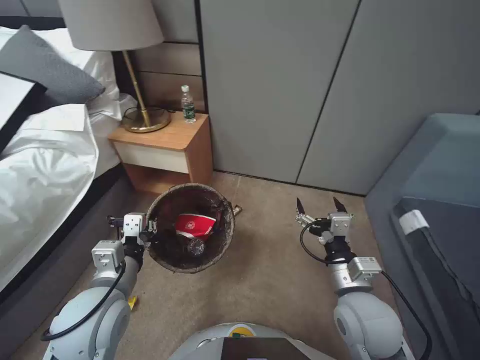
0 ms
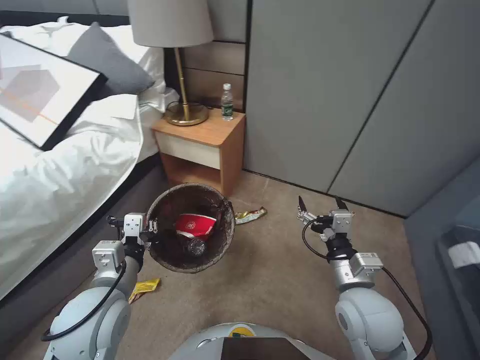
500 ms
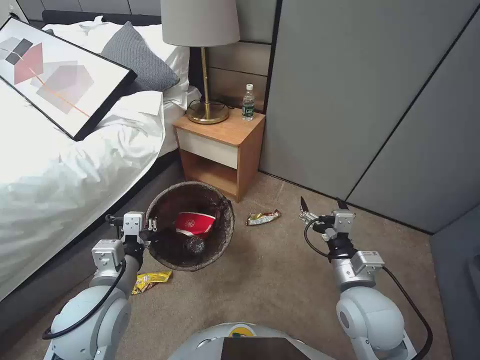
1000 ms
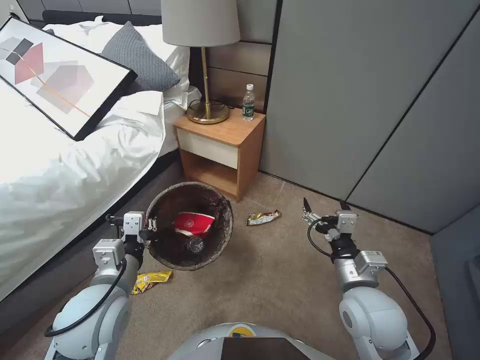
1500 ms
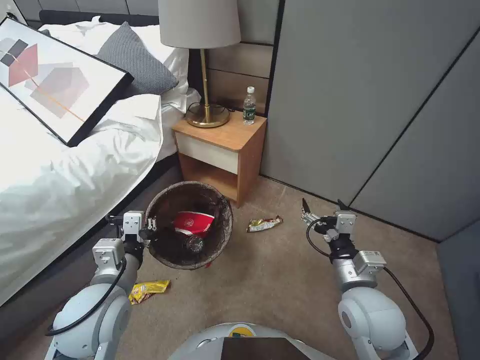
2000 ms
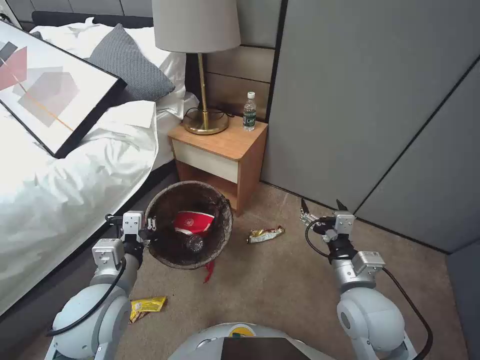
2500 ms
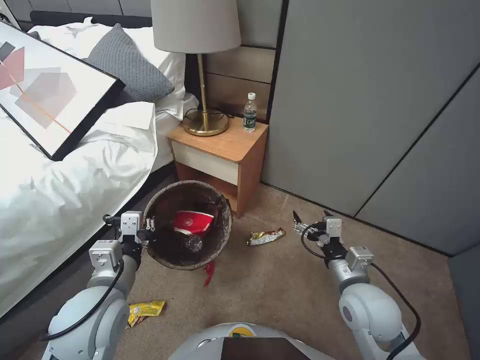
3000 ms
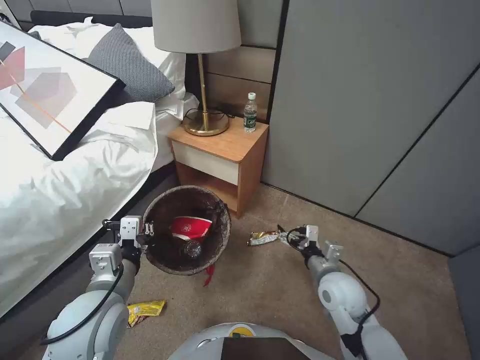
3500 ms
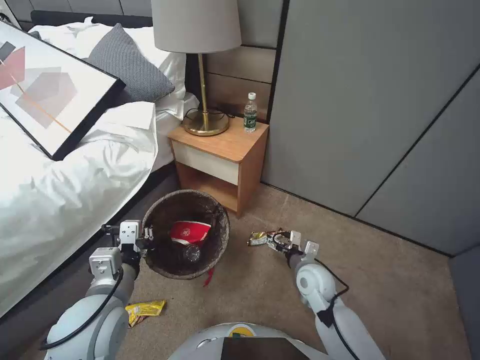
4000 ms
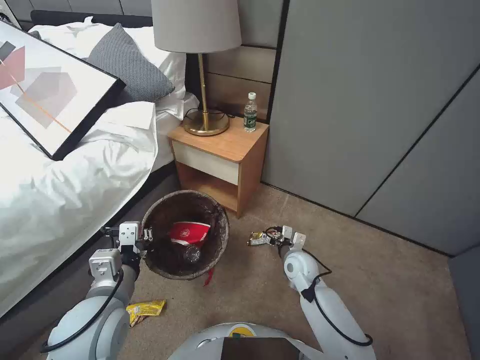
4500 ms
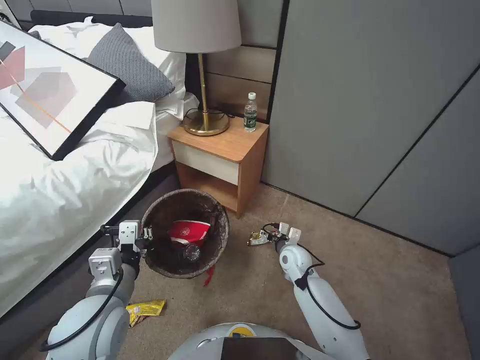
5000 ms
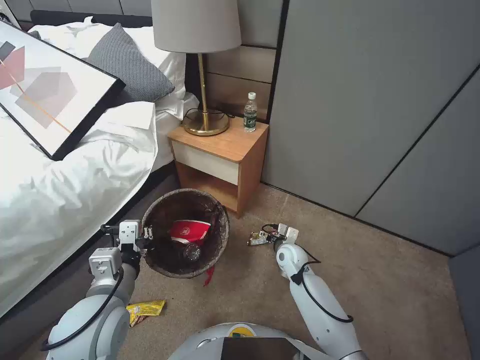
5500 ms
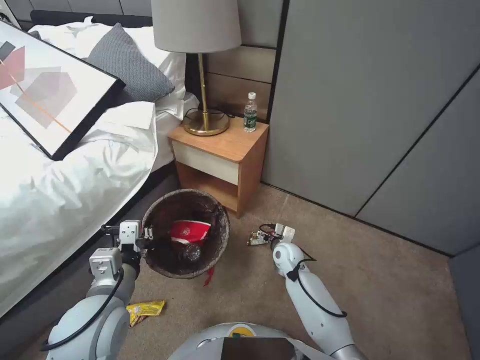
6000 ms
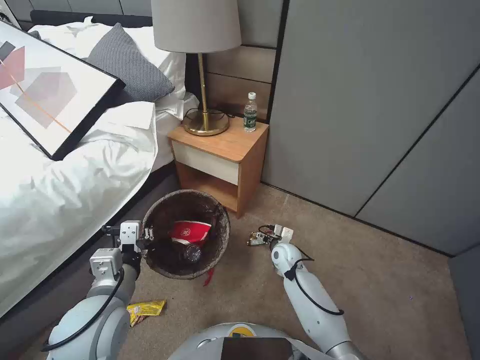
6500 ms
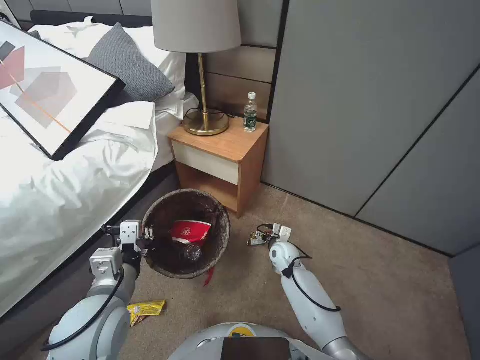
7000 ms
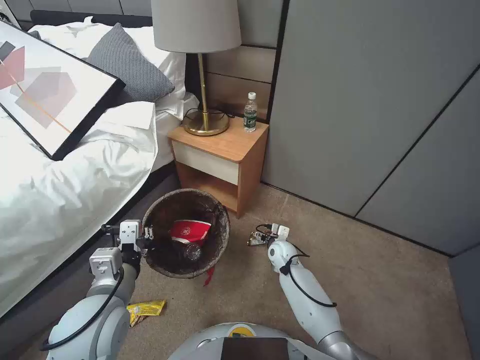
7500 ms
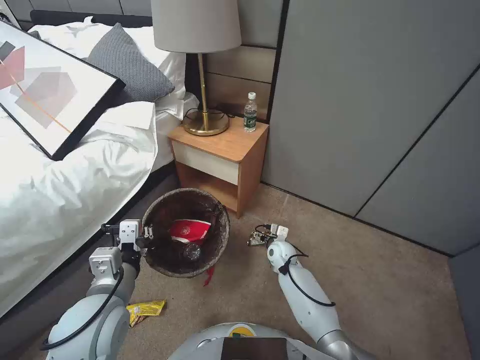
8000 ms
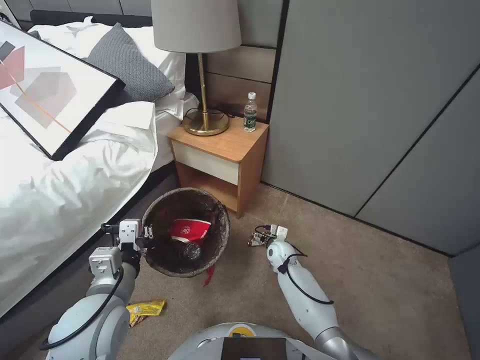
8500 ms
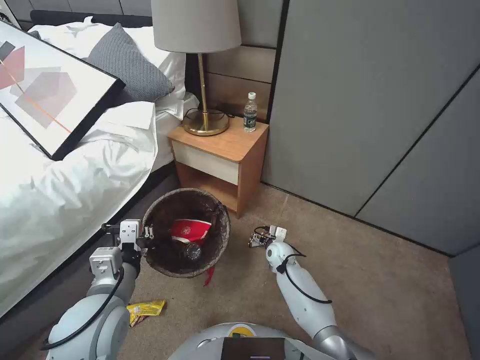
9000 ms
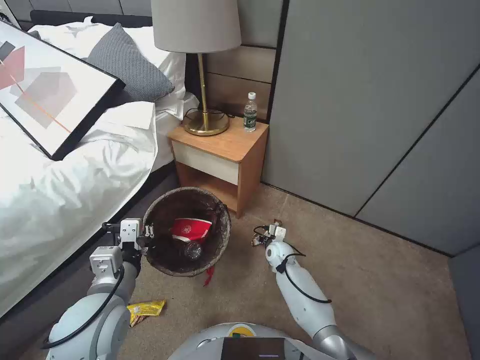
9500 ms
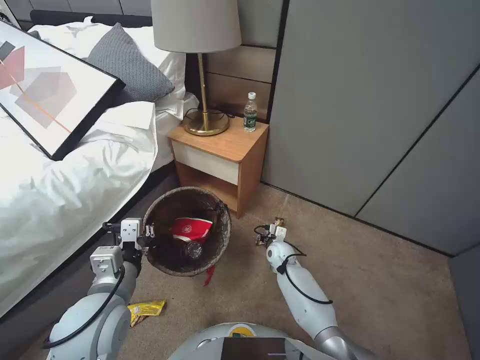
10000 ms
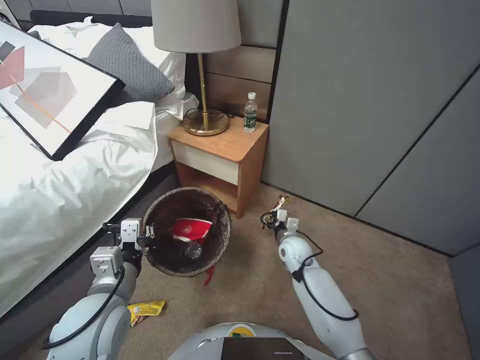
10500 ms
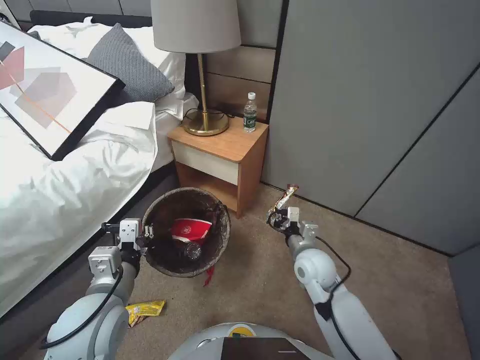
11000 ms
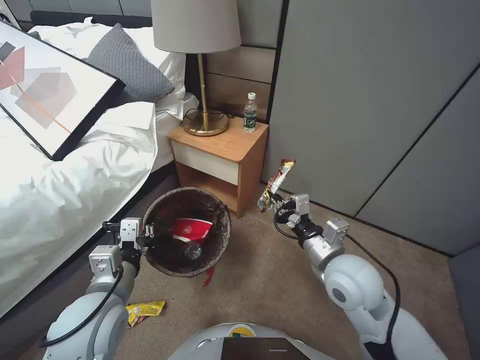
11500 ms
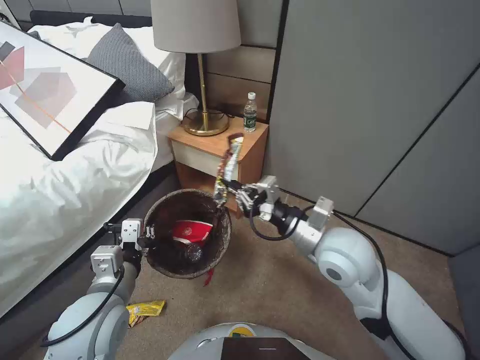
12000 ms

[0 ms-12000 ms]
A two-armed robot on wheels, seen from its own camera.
Task of the whole recording: Pick up the trash bin, then pick up the garbage from the floor and place it into the trash bin.
2000 ms to 4000 ms: The right gripper shifts some 15 cm downward and forward.
4000 ms to 6000 ms: The right gripper heads forward and downward, covering some 10 cm.
6000 ms to 8000 ms: The grippers stay close to where they were, moving slightly.
8000 ms to 10000 ms: The right gripper closes its fingers.
10000 ms to 12000 ms: The right gripper travels upward and backward by about 35 cm.

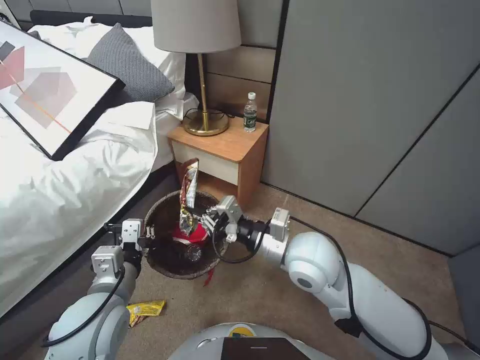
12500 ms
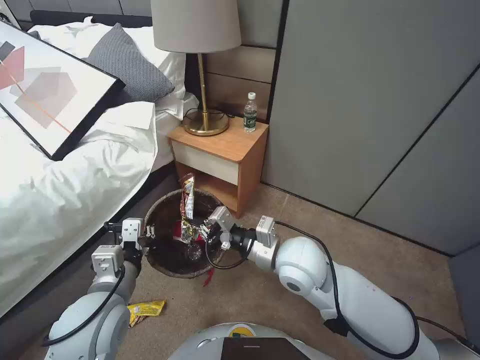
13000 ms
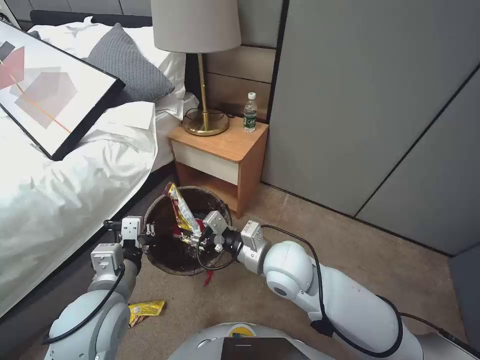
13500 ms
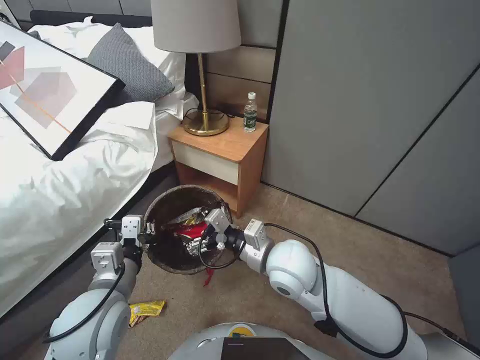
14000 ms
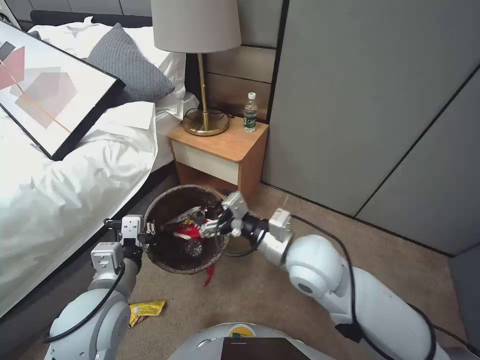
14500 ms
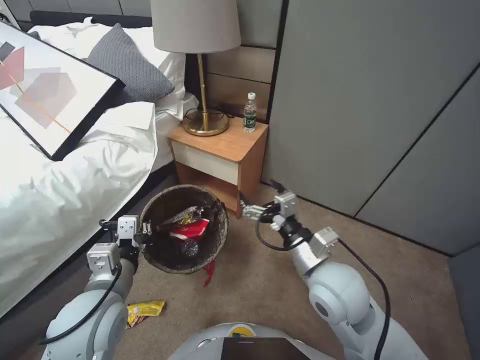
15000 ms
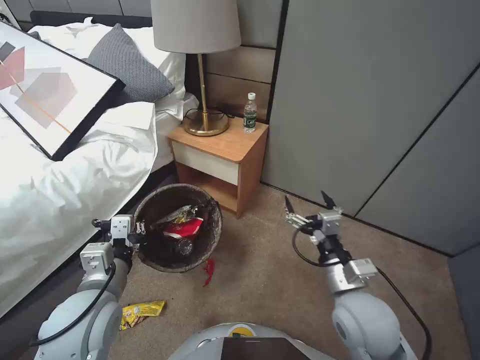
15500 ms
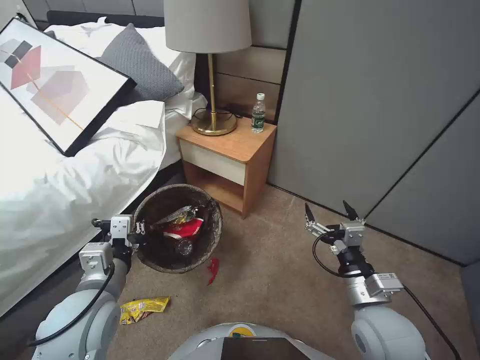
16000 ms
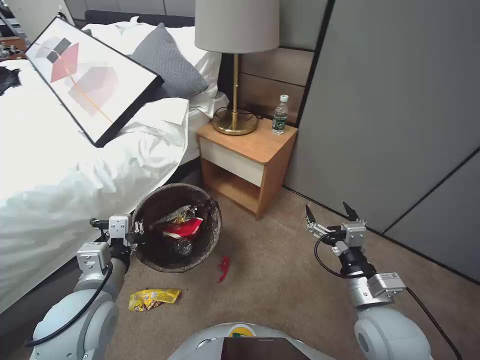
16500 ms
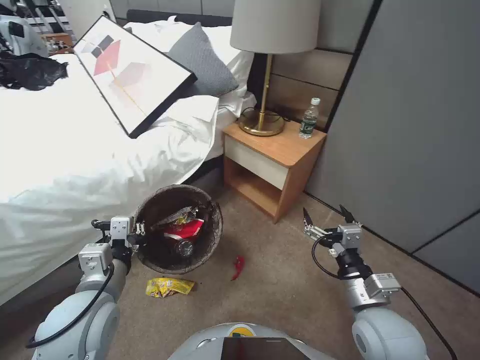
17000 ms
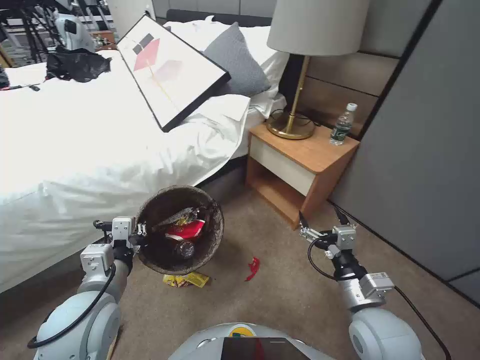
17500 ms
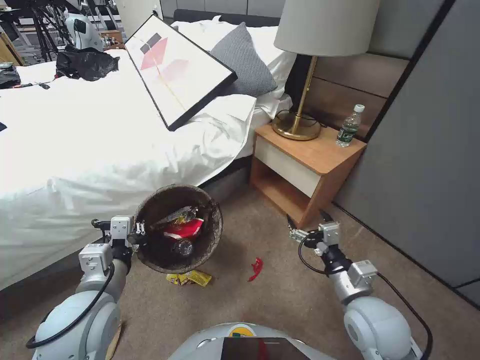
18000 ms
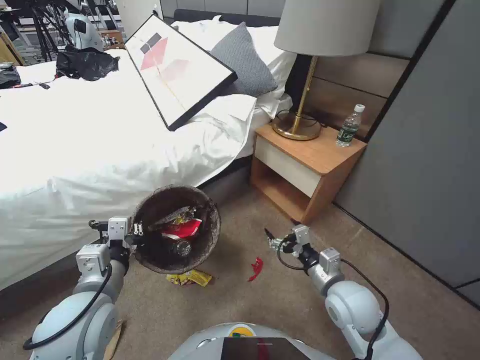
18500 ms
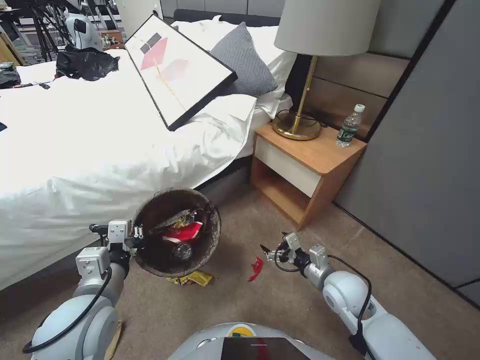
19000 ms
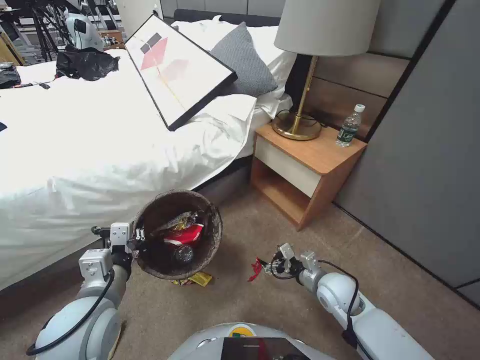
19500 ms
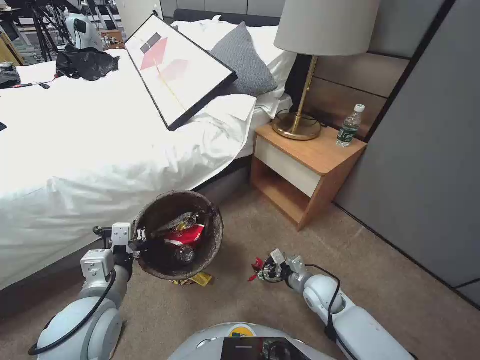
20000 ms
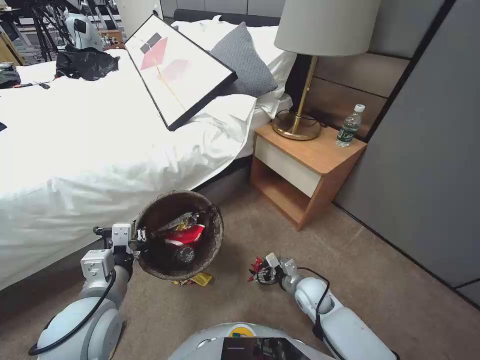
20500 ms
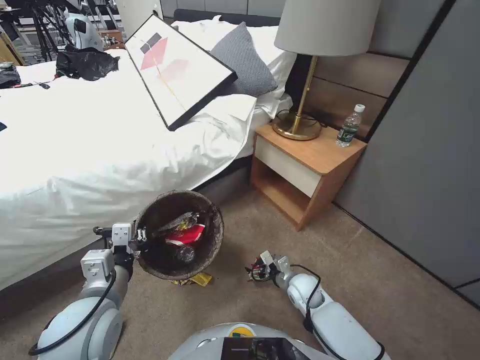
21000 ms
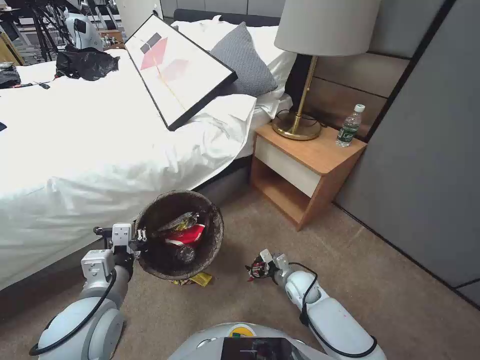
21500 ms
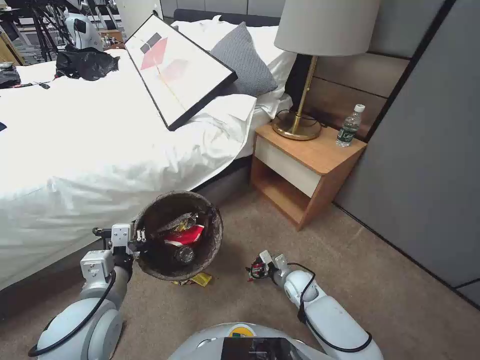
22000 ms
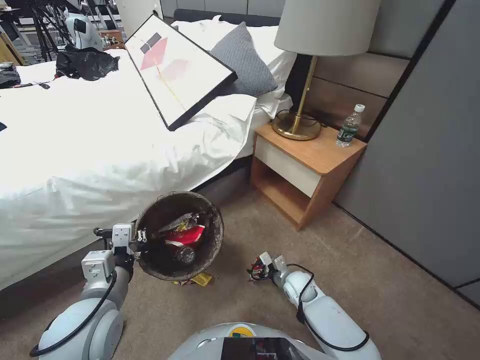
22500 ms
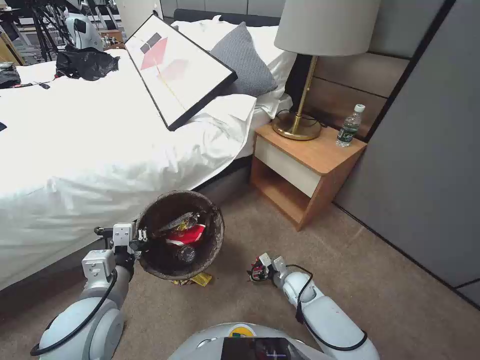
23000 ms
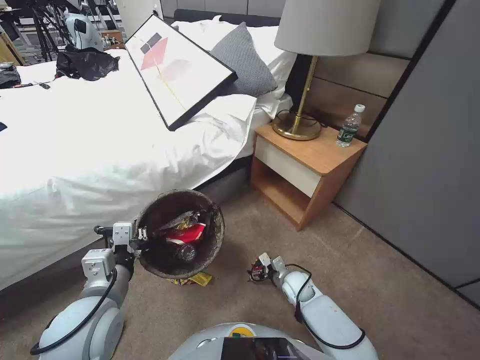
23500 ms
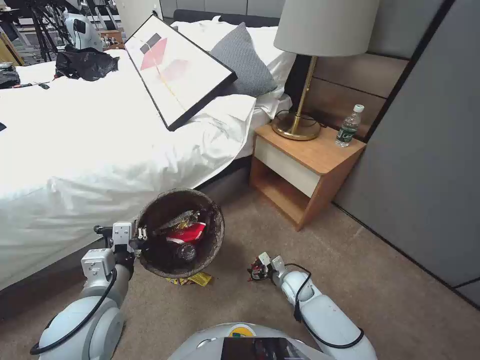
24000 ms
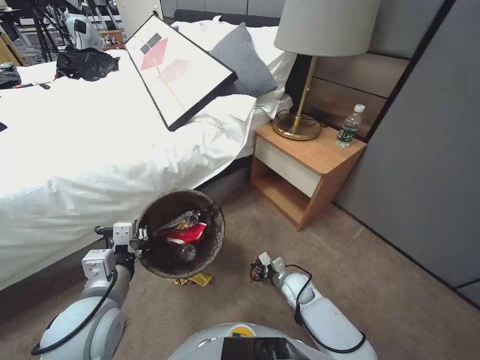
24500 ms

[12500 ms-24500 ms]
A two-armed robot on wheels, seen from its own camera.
Task of the whole recording: Pick up the trash bin, then pick up the garbage from the floor and place it into the trash bin.
12500 ms to 14500 ms: The right gripper opens its fingers.
14500 ms to 16500 ms: The right gripper moves to the right, backward and downward, about 20 cm.
16500 ms to 18500 ms: The right gripper travels forward by some 5 cm.
18500 ms to 20500 ms: The right gripper travels downward by about 15 cm.
20500 ms to 22500 ms: The right gripper moves about 5 cm.
22500 ms to 24500 ms: The right gripper closes up.

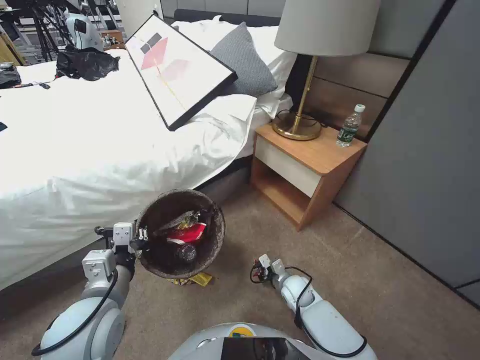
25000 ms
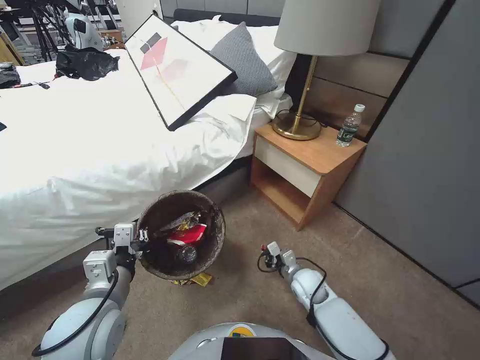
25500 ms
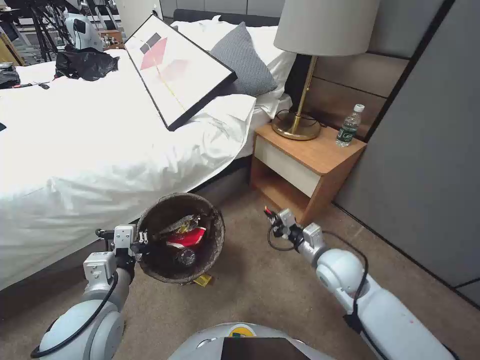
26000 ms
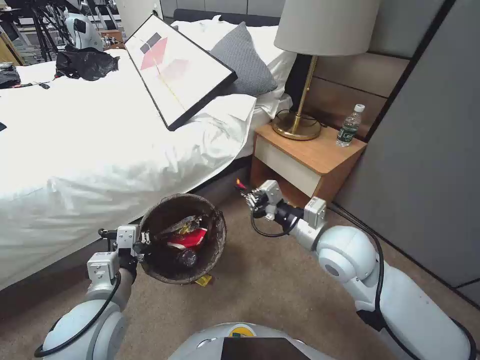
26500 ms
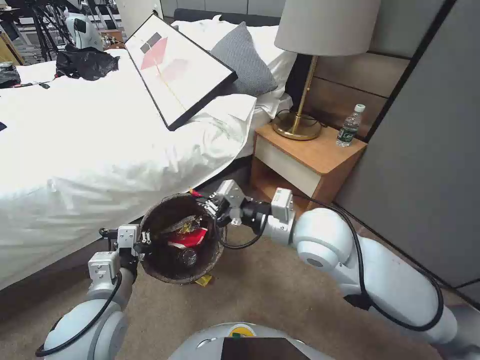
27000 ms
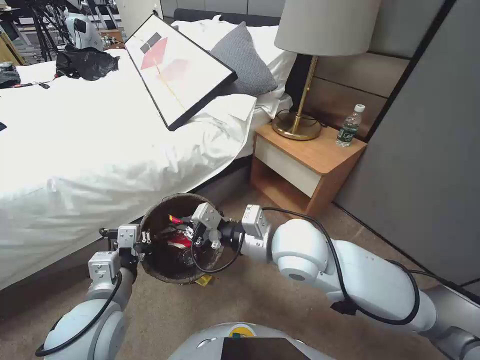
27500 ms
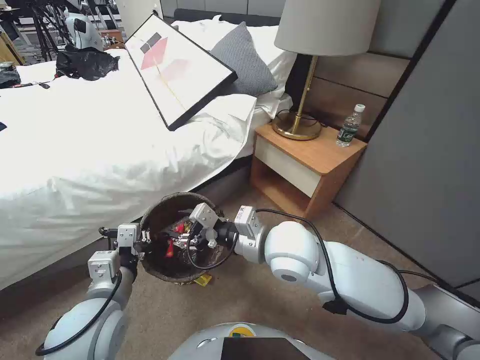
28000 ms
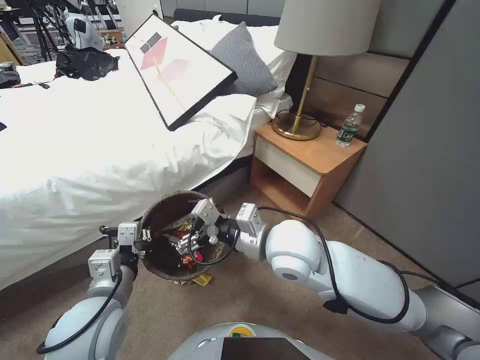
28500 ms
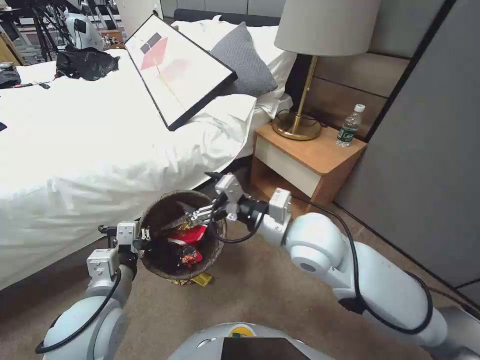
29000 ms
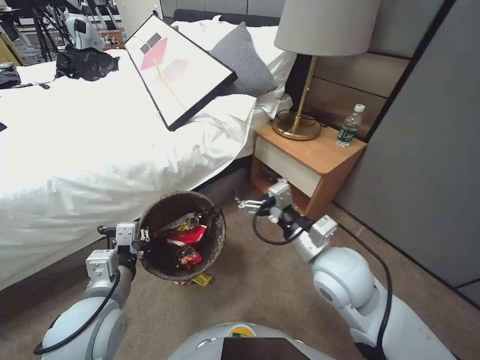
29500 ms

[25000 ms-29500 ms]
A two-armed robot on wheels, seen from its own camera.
Task of the whole recording: Pick up the trash bin, then pick up the garbage from the floor and place it into the trash bin.
25000 ms to 27000 ms: The right gripper goes roughly 40 cm upward.
27000 ms to 29500 ms: The right gripper moves downward, some 5 cm, reaches some 5 cm to the left, then returns, and opens its fingers.
